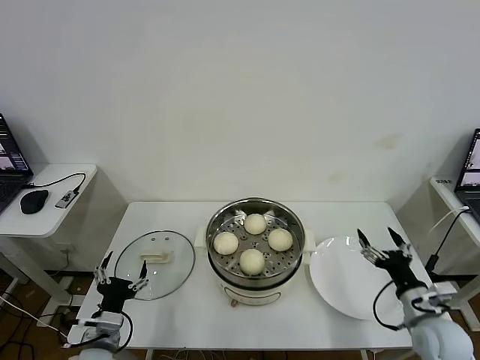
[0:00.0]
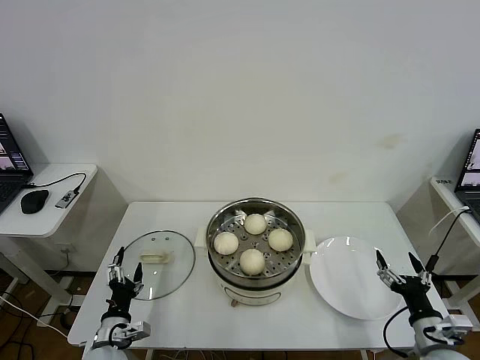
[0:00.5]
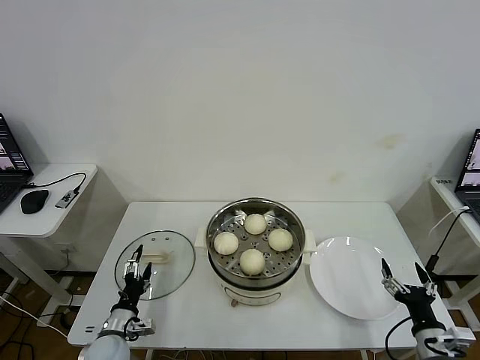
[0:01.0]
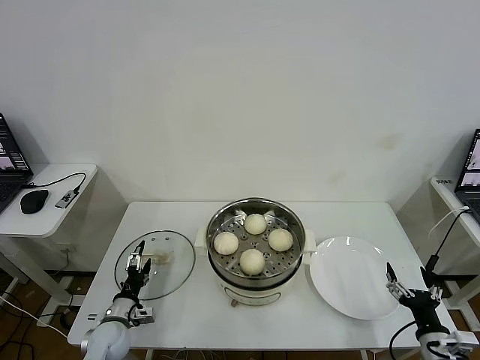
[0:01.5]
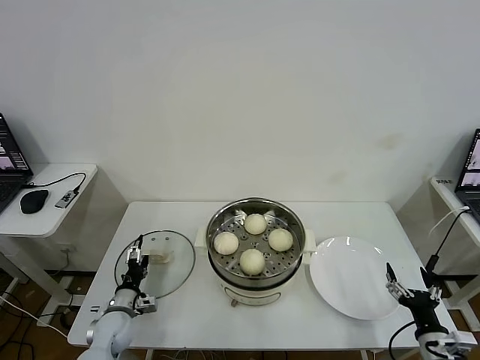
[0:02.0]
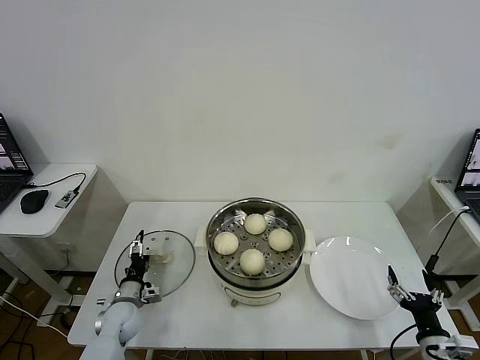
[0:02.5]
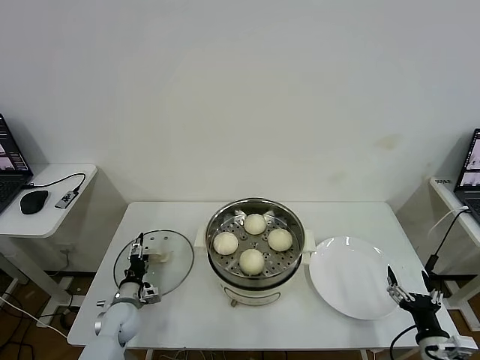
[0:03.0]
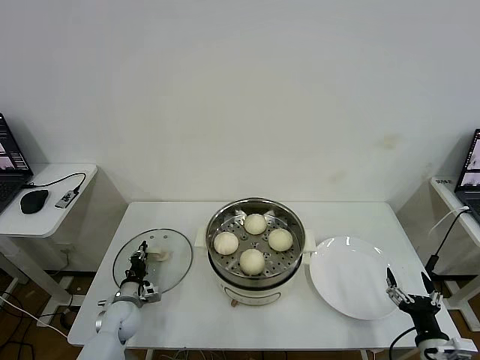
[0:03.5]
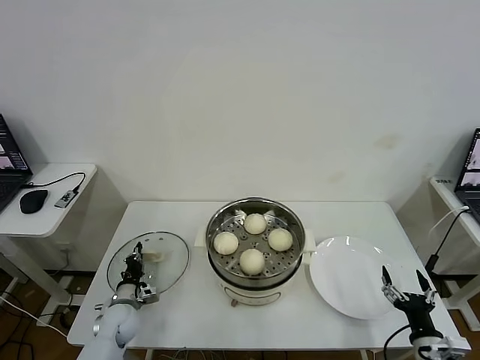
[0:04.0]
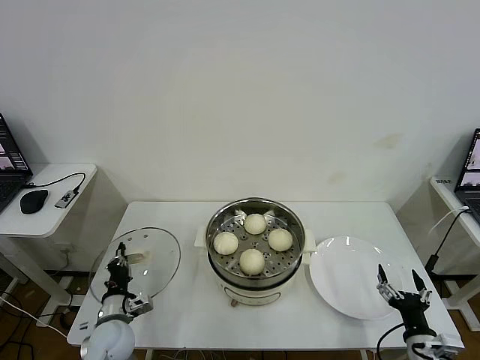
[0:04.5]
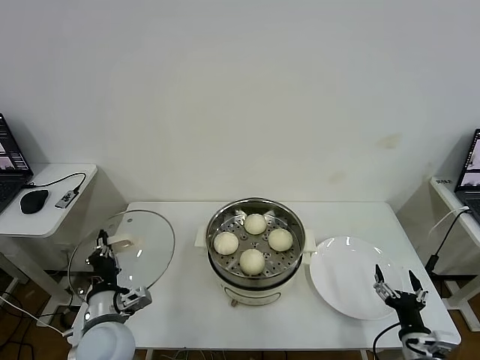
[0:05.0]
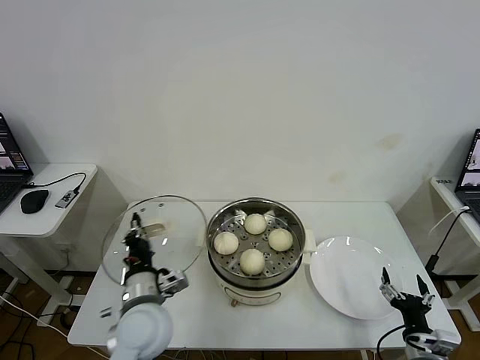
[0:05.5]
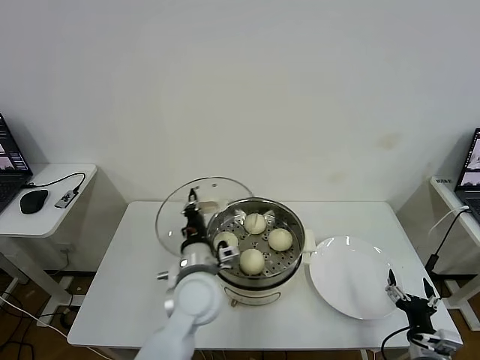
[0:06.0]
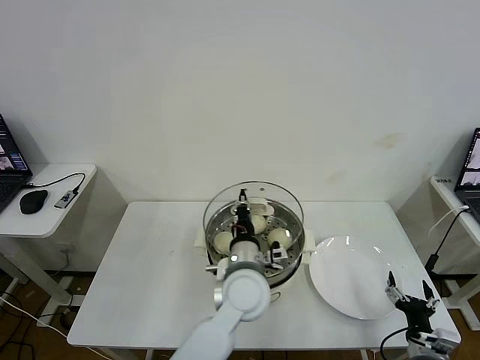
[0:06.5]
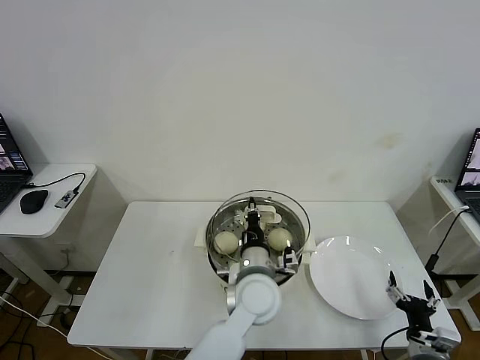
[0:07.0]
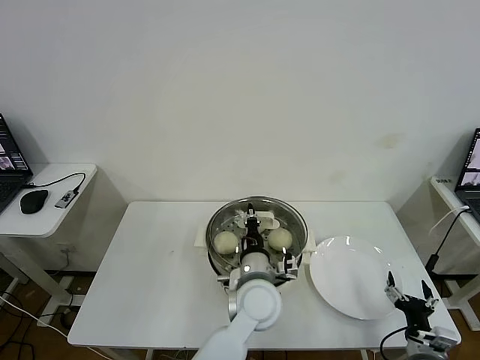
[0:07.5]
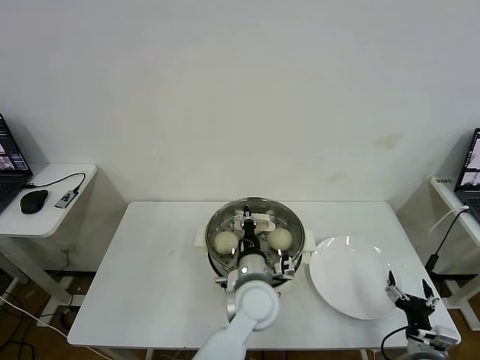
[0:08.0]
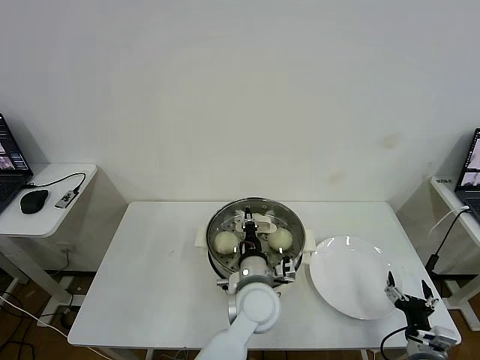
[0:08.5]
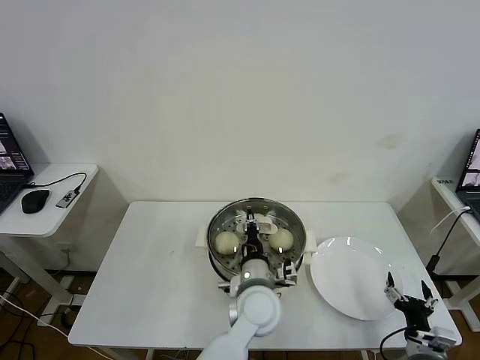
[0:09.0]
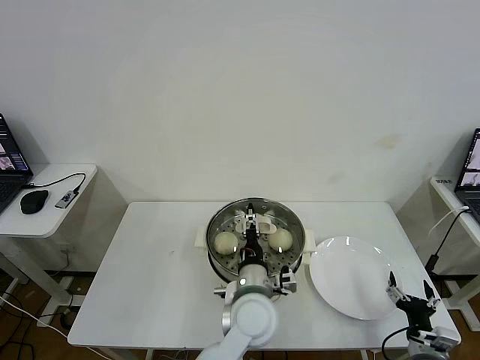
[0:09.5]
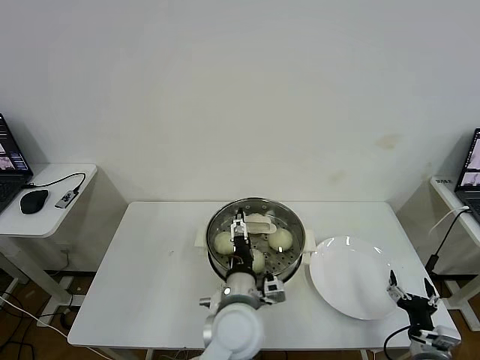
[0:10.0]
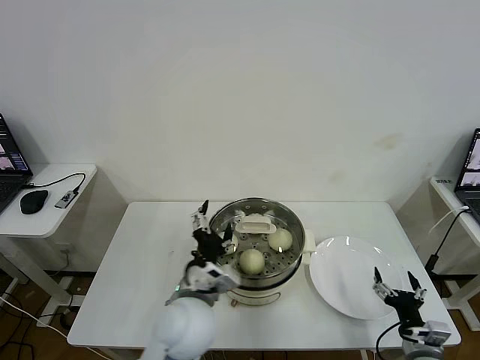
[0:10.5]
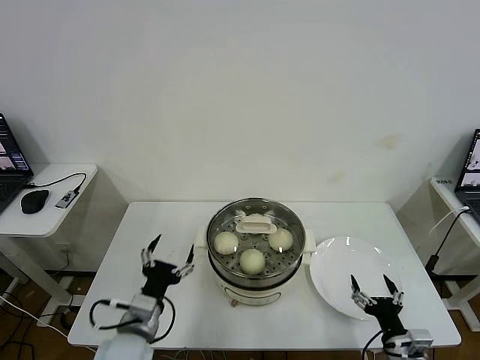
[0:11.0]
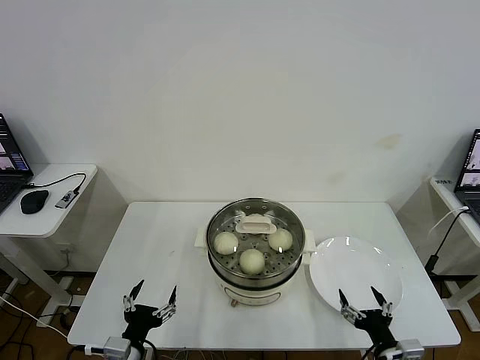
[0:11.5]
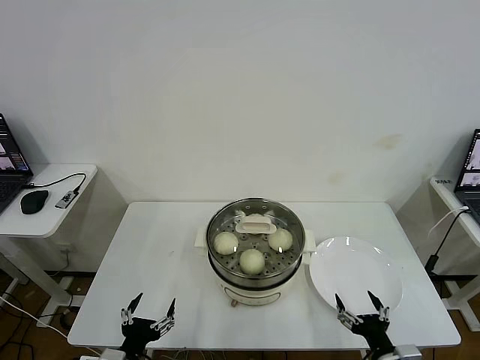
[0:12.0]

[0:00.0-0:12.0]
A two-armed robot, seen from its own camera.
Task of the whole recording: take steamed baozi put them in steamer then cover it.
Step, 0:00.0 to 0:03.5: Grasp the pot lid with left gripper.
Step, 0:04.0 to 0:09.5: Place the pot lid on the steamer with left gripper.
0:00.0 to 0:02.0: The right gripper goes roughly 5 cm backward; the left gripper travels forward and downward by roughly 15 cm.
0:02.0 to 0:04.0: The left gripper closes up.
0:04.0 to 0:06.0: The left gripper heads to the right and upward, covering approximately 35 cm.
0:06.0 to 0:08.0: The left gripper goes about 10 cm to the right.
0:08.0 to 0:10.0: The left gripper moves backward, approximately 5 cm, and opens its fingers.
0:10.0 to 0:12.0: The right gripper is displaced to the left by roughly 10 cm. Meanwhile the left gripper travels to the left and backward by some 30 cm.
